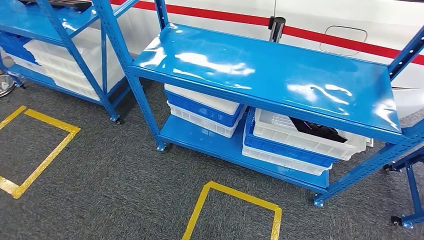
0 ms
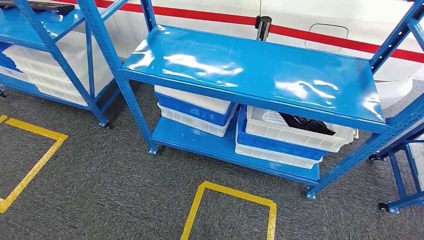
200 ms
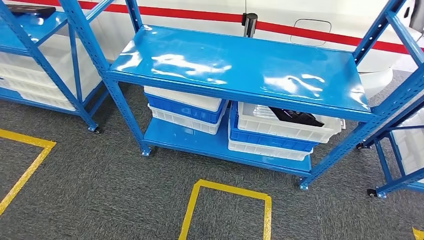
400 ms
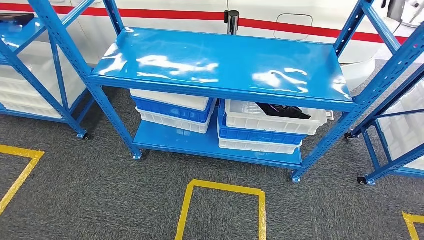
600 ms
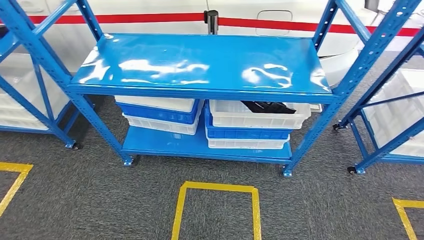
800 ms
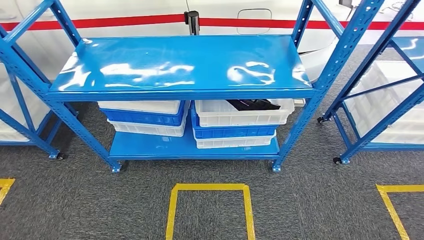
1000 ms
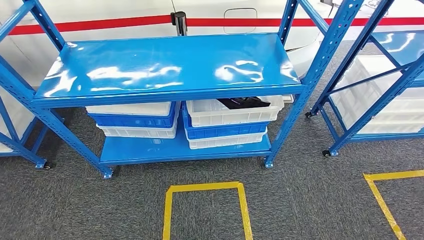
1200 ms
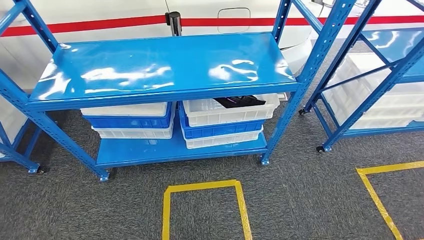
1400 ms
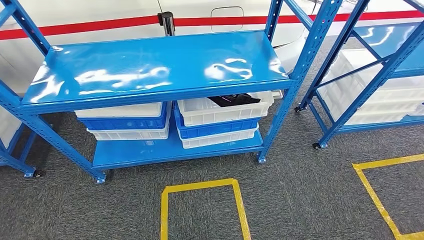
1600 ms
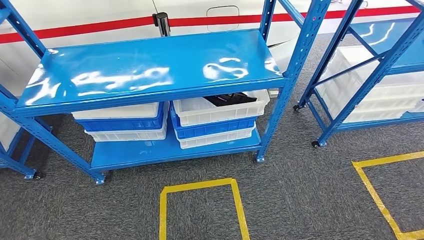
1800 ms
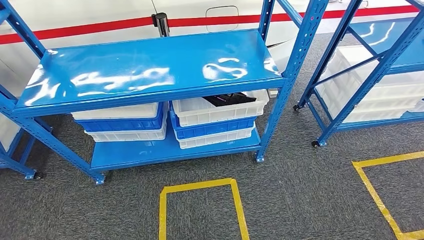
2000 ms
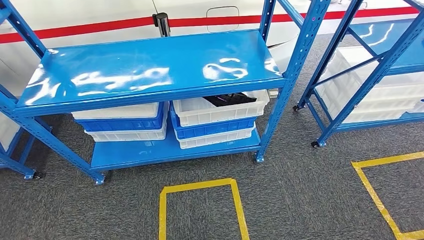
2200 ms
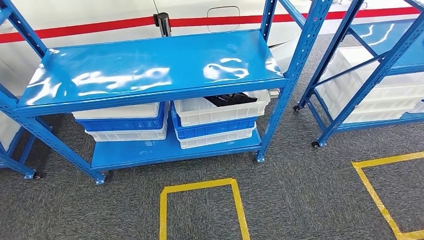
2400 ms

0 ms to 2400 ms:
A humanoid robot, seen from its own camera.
Step, 0 ms to 2400 ms: Move to the initial position of the shelf.
